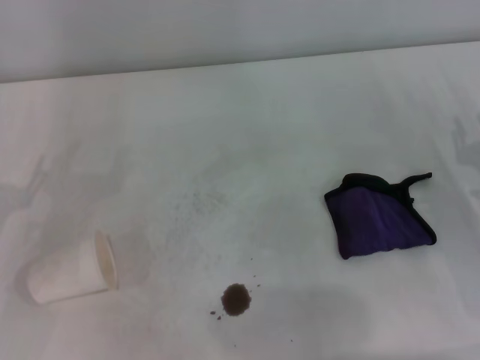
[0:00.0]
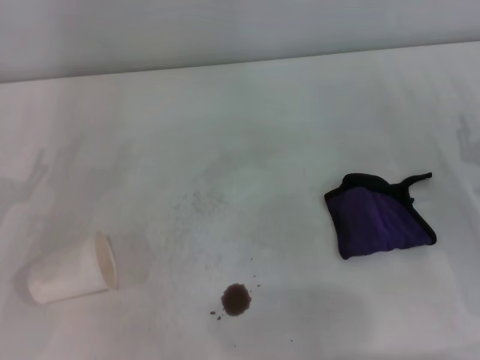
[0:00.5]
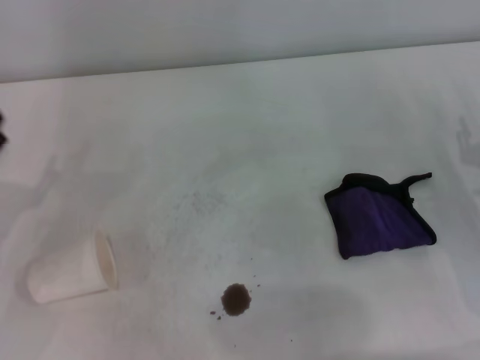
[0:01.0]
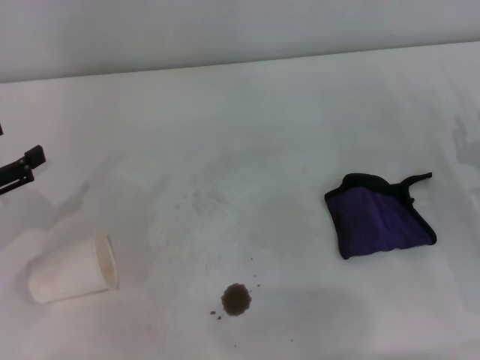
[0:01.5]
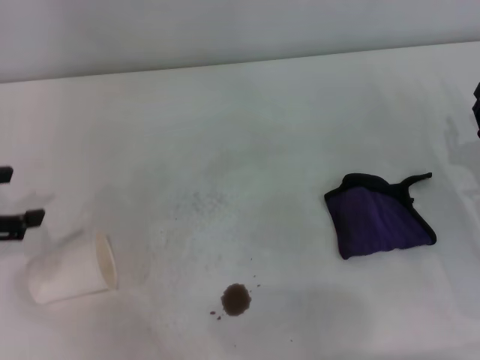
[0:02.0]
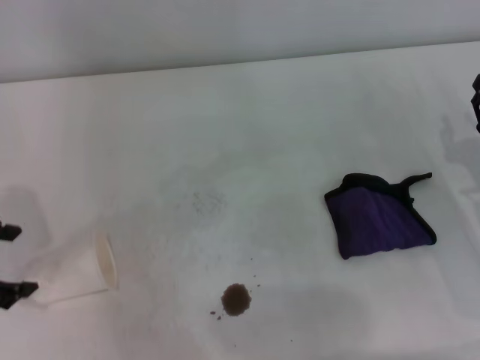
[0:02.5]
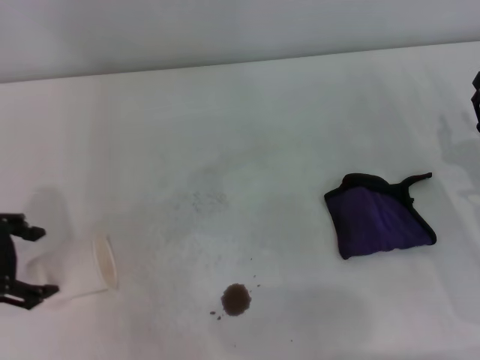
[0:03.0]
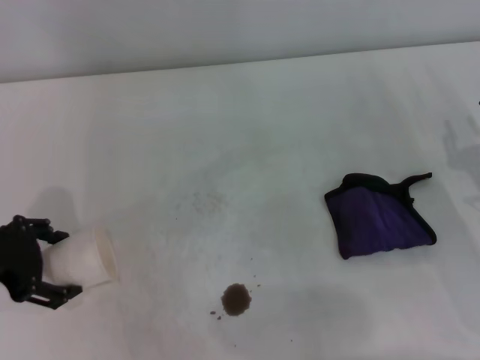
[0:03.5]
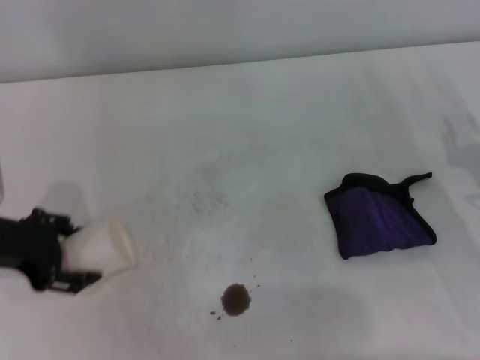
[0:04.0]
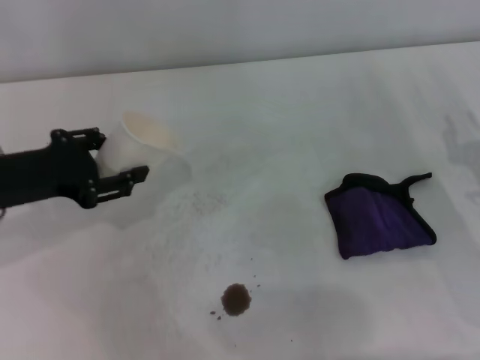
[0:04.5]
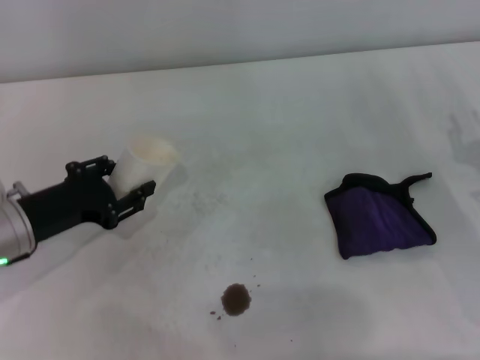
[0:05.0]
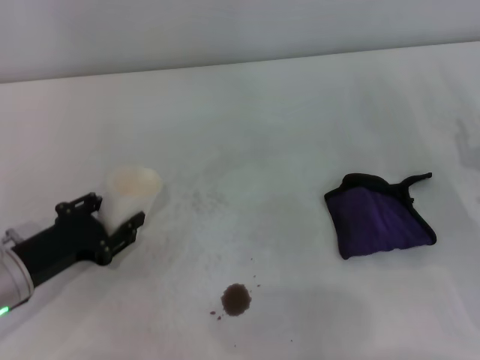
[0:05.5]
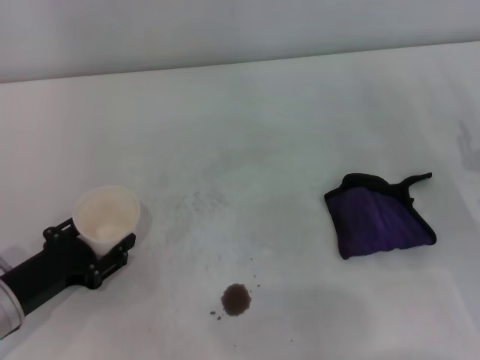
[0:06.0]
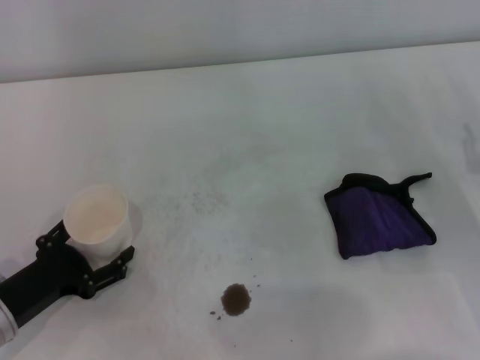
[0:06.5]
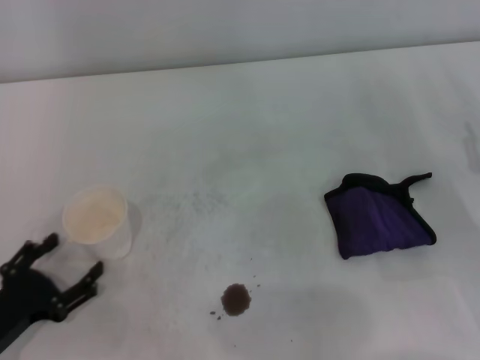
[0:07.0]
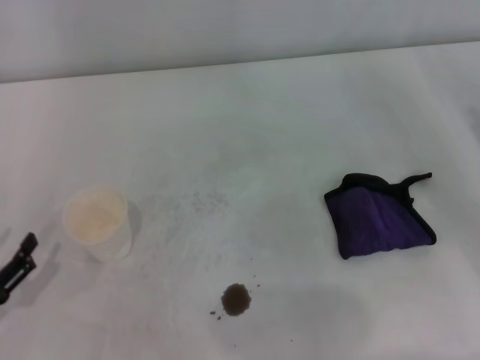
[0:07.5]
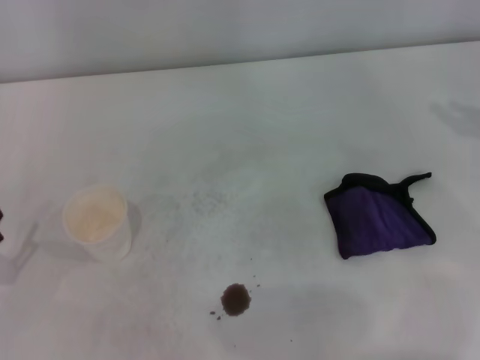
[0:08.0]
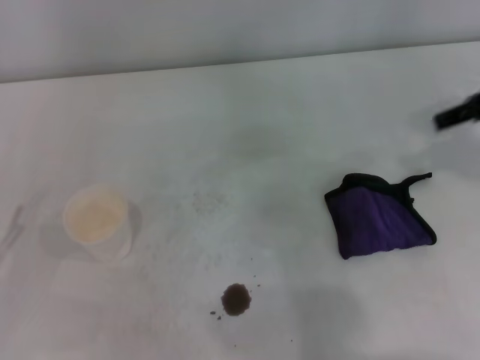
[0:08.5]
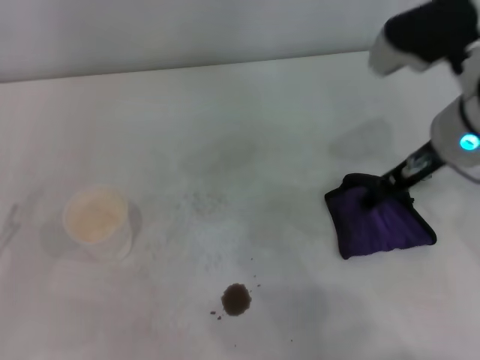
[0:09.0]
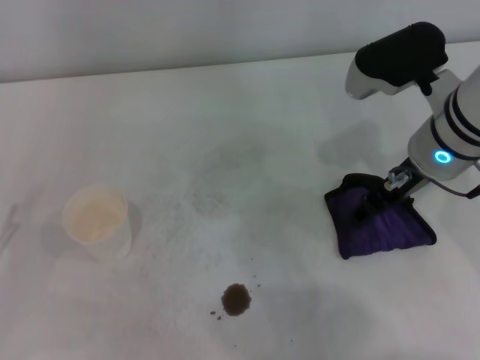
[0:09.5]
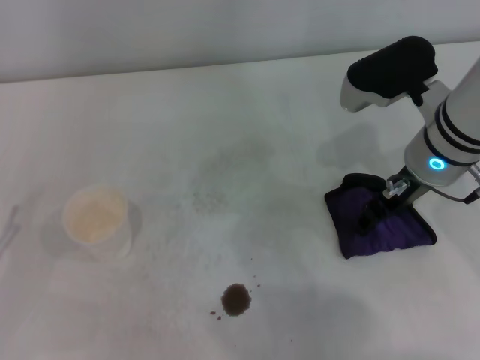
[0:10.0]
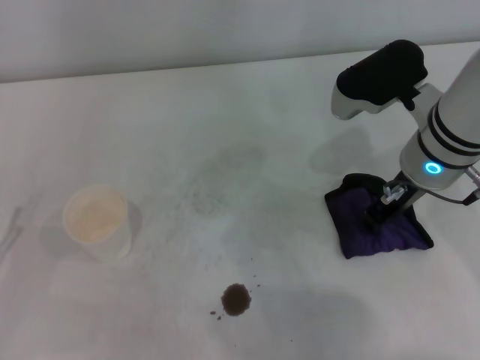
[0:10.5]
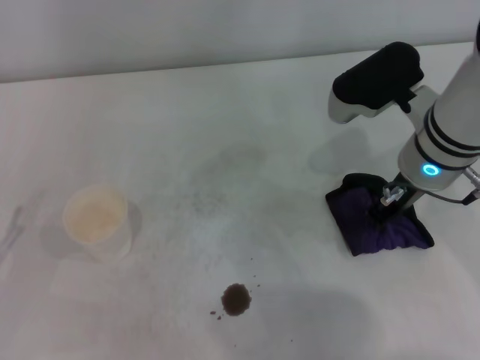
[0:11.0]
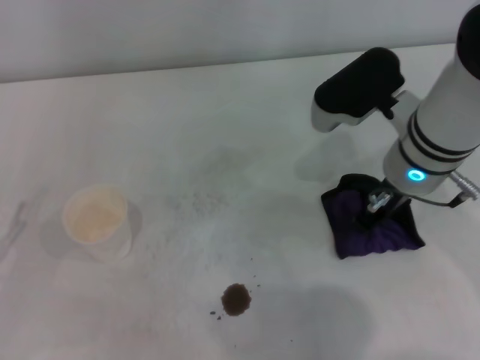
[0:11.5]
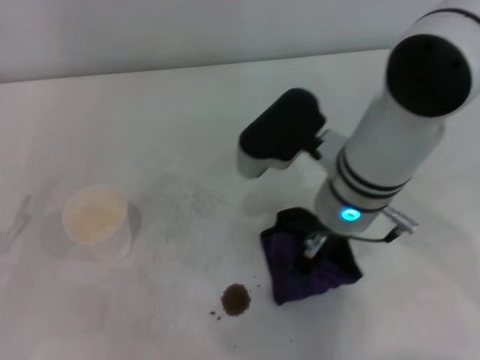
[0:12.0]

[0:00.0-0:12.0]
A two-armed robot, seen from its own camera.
Step, 0:00.0 to 0:03.0: Grasp the paper cup with the left gripper.
Step, 0:03.5 to 0:06.5: Stand the paper cup upright with the left gripper.
Step, 0:07.0 to 0:11.0: Grasp the rag with the right gripper.
0:00.0 to 0:02.0: The left gripper moves upward, about 10 cm.
0:02.0 to 0:04.0: The left gripper shifts roughly 5 cm to the right.
0:04.0 to 0:06.0: The left gripper moves downward and backward, roughly 15 cm, and closes up.
0:06.0 to 0:08.0: The left gripper shifts approximately 10 cm to the left and backward, and opens its fingers.
0:08.0 to 0:10.0: The right gripper goes roughly 20 cm to the left.
0:10.0 to 0:12.0: The right gripper is displaced to the left by approximately 10 cm, and closes.

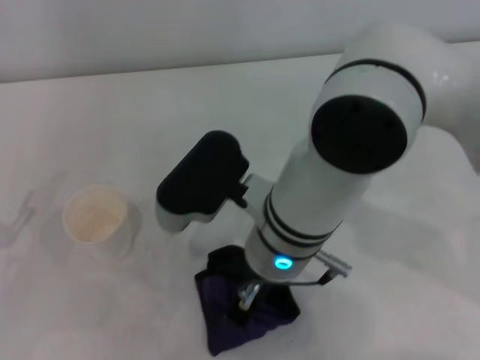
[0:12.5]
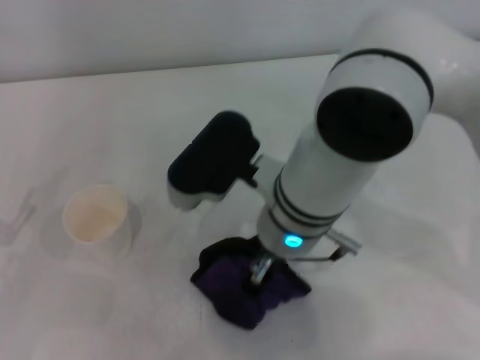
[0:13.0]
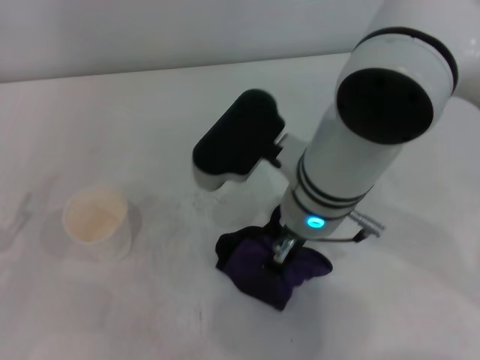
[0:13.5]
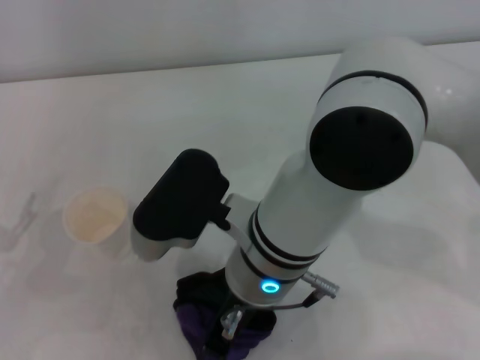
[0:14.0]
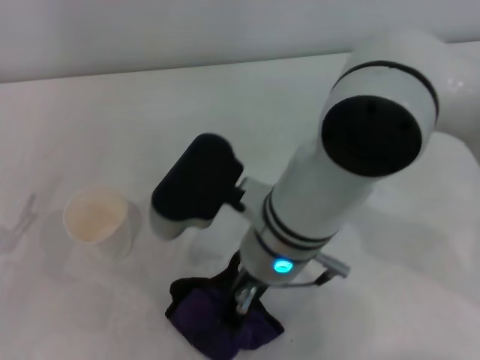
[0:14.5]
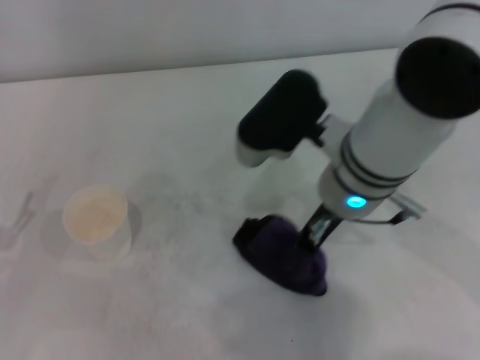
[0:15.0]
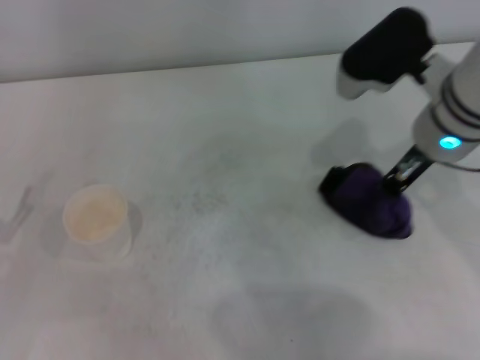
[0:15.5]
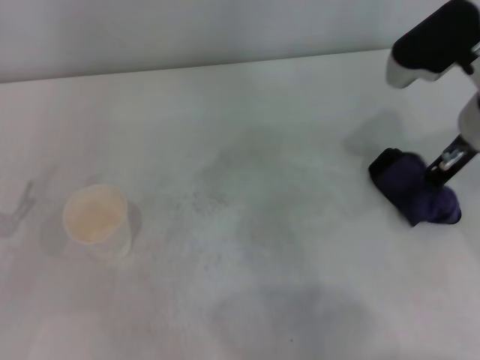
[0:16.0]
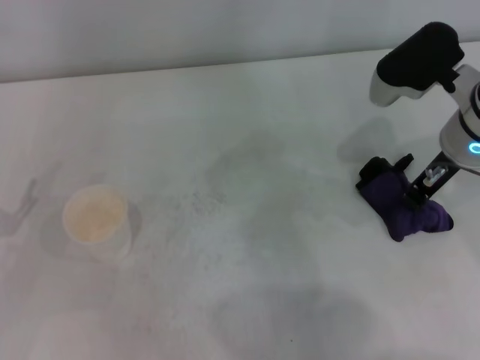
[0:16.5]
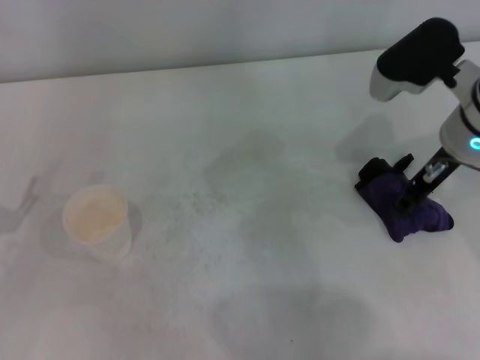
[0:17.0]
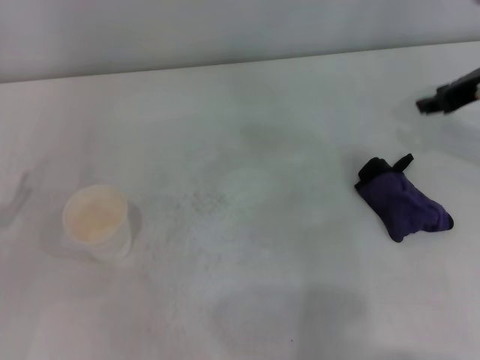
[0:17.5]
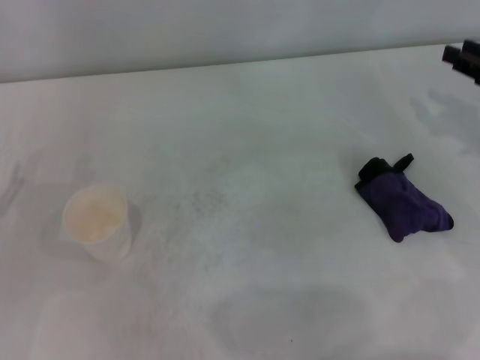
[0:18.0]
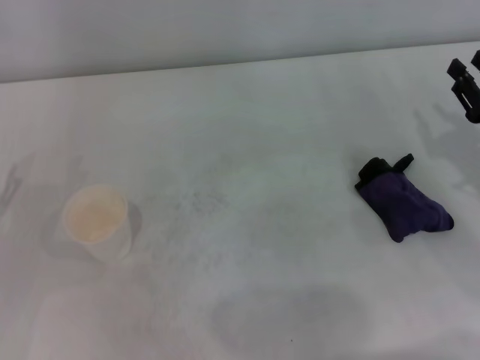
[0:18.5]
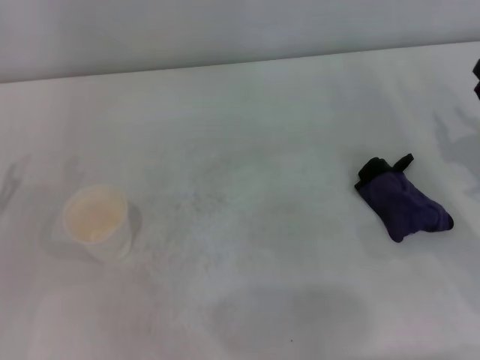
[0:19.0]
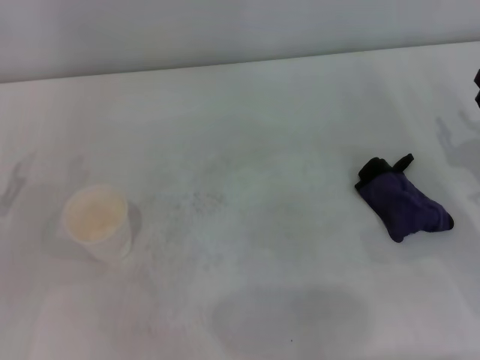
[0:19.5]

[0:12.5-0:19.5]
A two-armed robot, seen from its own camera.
Step, 0:12.5 to 0:15.5: Wipe the stains off the table with the right gripper.
Step, 0:16.0 to 0:17.0: Place the rag on the table with the right gripper.
0:12.5 to 0:14.5: The grippers make only small movements.
0:14.5 to 0:16.0: The right gripper travels to the right by some 20 cm.
0:16.0 to 0:17.5: The right gripper travels to the right by about 5 cm, and opens its fingers.
0:17.5 to 0:19.5: The right gripper is displaced downward and backward by approximately 20 cm.

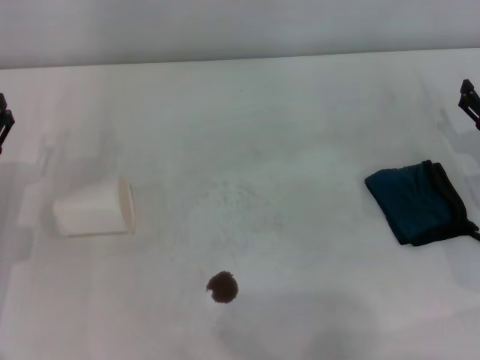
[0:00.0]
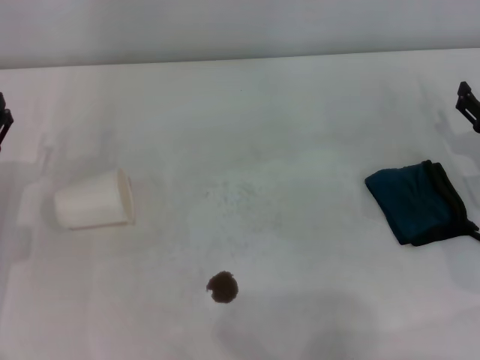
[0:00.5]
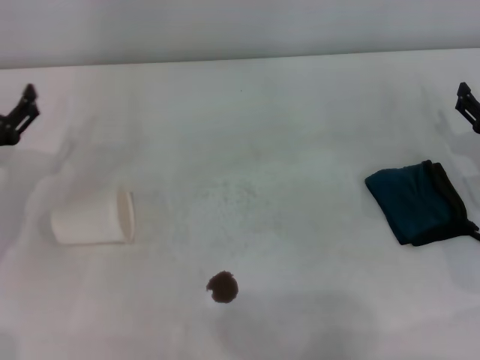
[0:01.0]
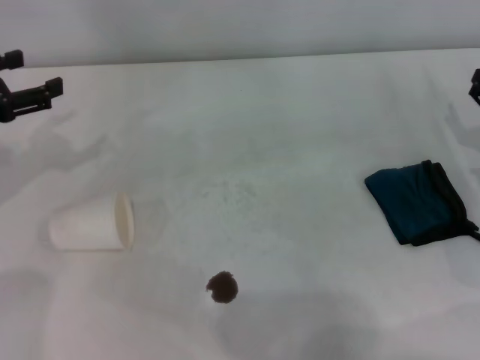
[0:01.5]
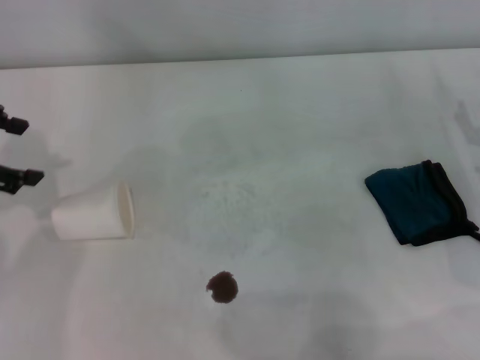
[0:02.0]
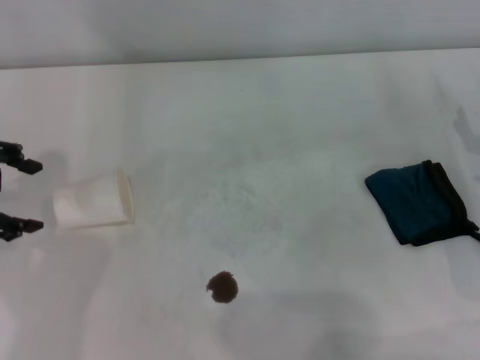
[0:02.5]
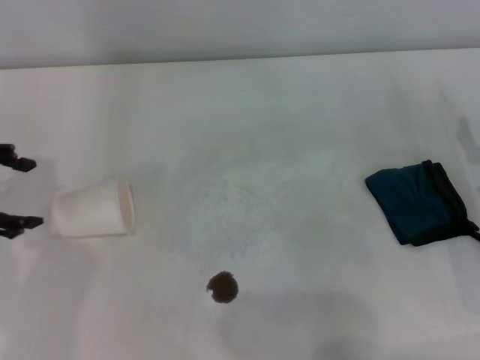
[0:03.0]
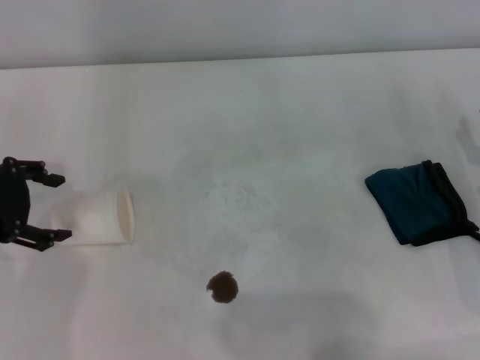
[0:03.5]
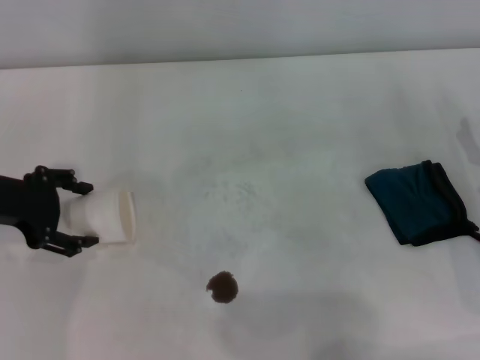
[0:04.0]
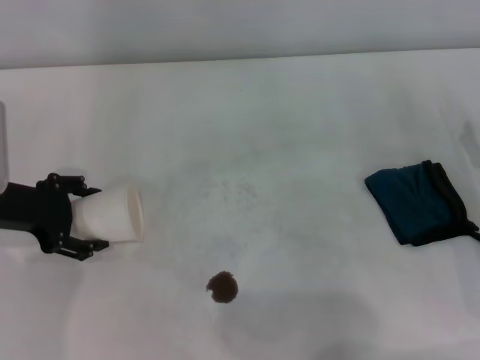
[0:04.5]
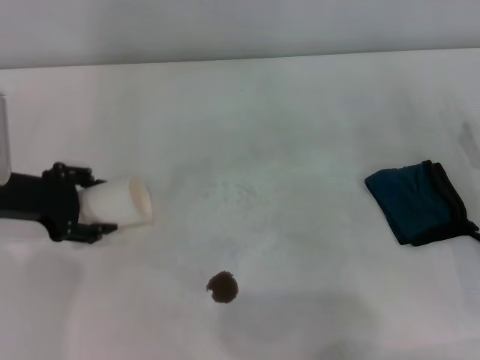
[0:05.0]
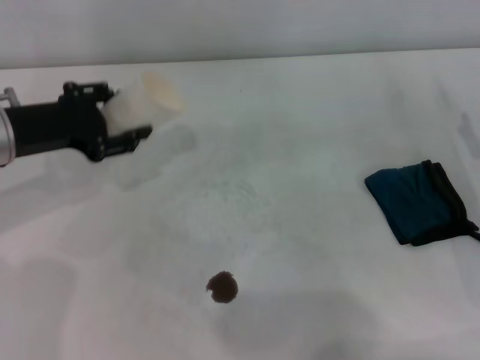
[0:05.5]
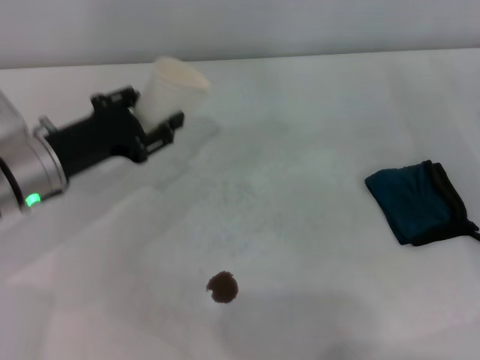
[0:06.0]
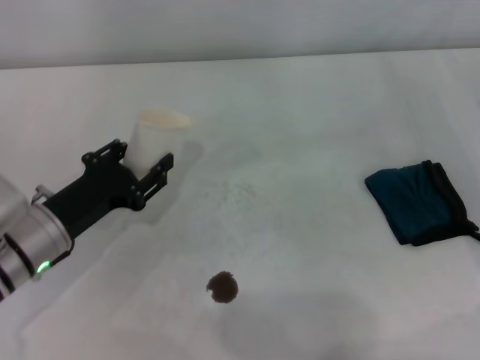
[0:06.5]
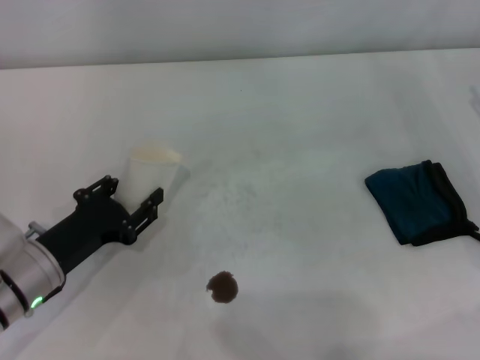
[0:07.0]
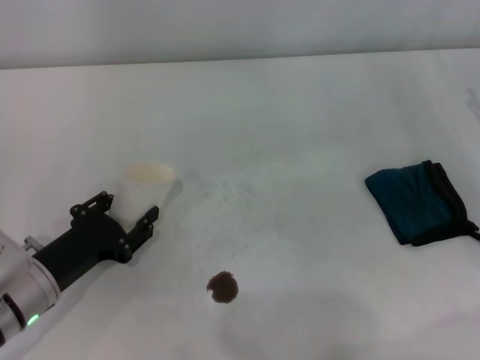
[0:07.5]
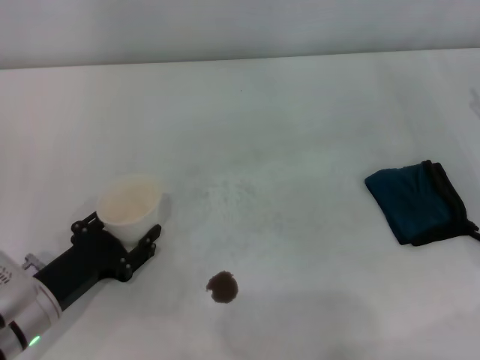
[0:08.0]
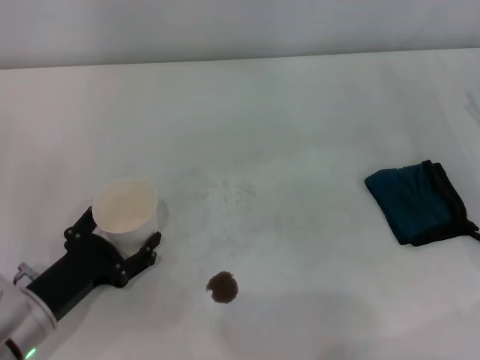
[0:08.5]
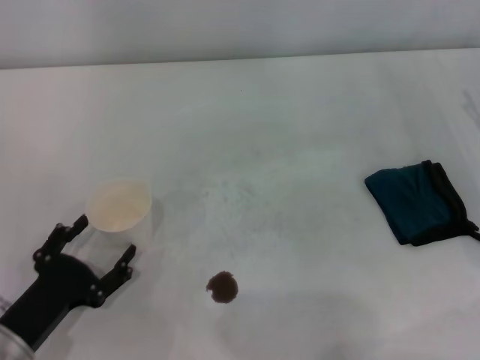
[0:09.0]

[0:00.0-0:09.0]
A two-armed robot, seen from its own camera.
Step, 0:00.0 to 0:04.5: Grasp the paper cup with the left gripper.
Step, 0:05.0 to 0:08.5: Stand the paper cup upright with the left gripper.
0:00.0 to 0:02.0: The left gripper heads upward and forward, covering roughly 20 cm.
0:02.0 to 0:04.5: The left gripper is displaced downward by roughly 10 cm.
0:04.5 to 0:07.0: The left gripper heads downward and backward, covering roughly 10 cm, and closes.
0:07.0 to 0:09.0: The left gripper heads backward, covering some 10 cm, and opens.
